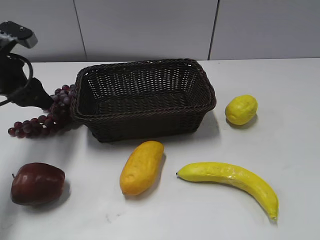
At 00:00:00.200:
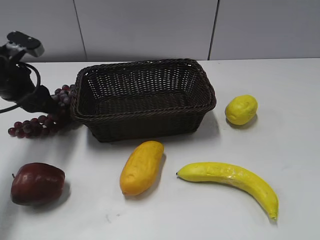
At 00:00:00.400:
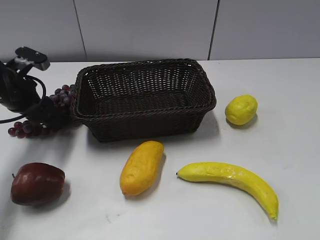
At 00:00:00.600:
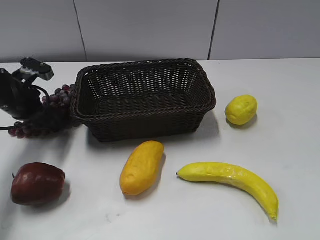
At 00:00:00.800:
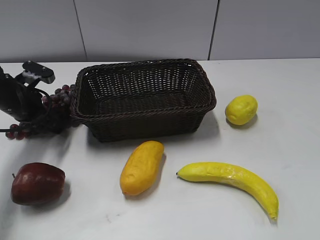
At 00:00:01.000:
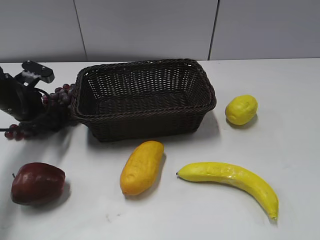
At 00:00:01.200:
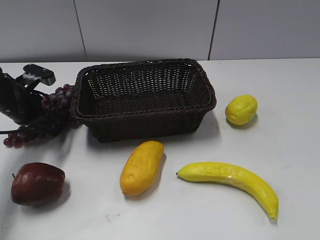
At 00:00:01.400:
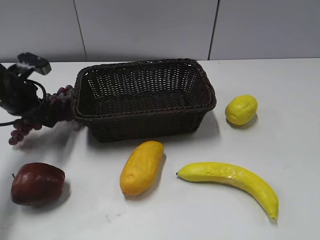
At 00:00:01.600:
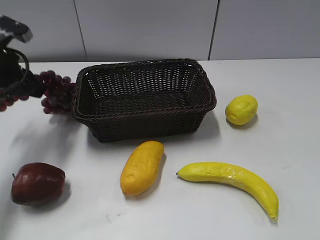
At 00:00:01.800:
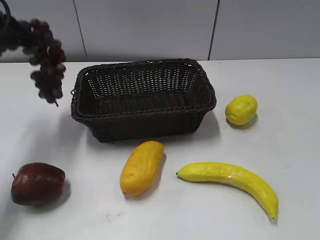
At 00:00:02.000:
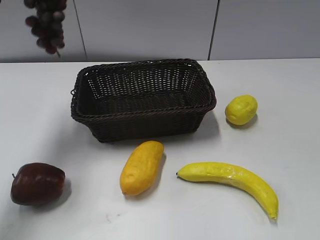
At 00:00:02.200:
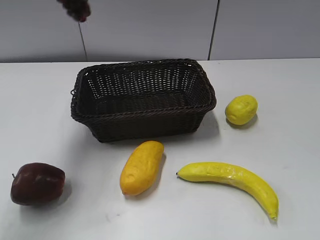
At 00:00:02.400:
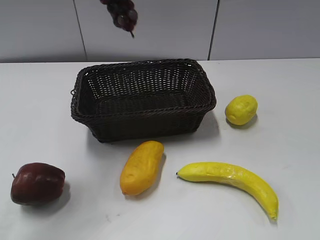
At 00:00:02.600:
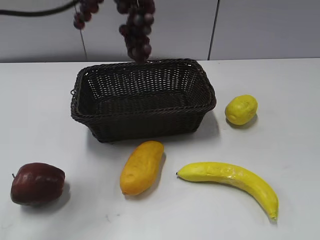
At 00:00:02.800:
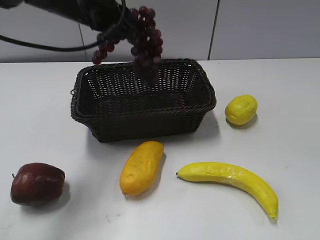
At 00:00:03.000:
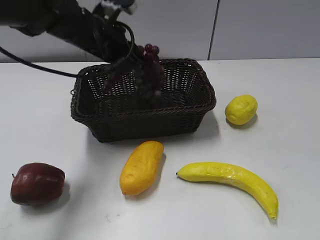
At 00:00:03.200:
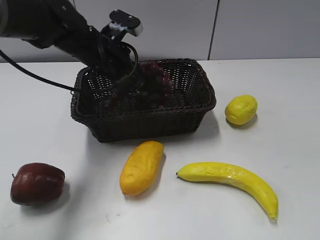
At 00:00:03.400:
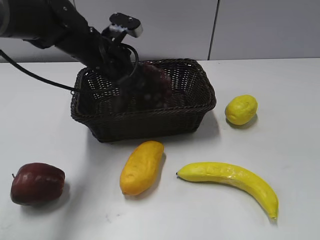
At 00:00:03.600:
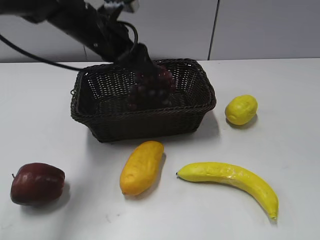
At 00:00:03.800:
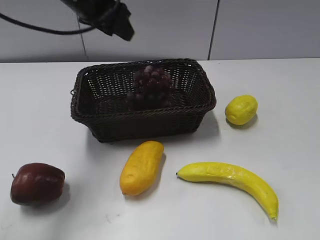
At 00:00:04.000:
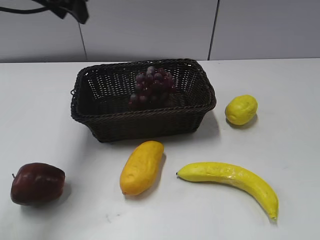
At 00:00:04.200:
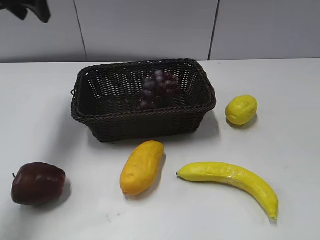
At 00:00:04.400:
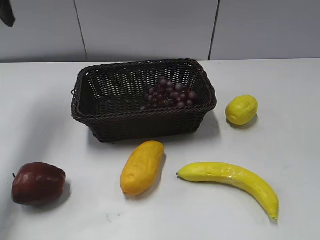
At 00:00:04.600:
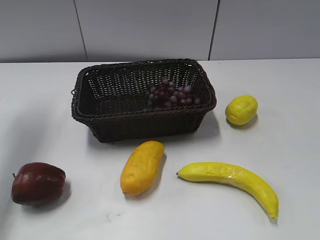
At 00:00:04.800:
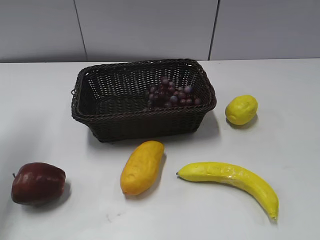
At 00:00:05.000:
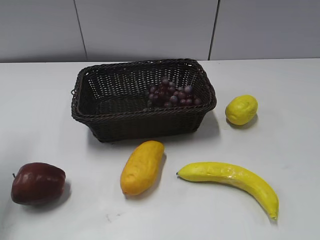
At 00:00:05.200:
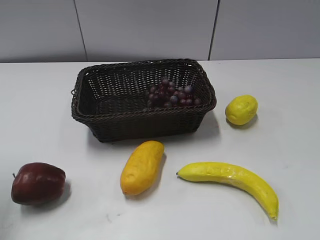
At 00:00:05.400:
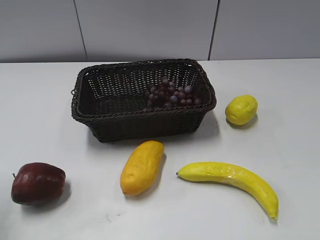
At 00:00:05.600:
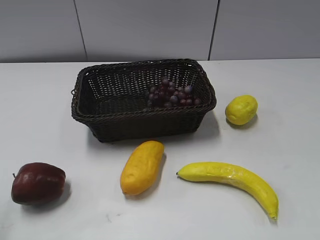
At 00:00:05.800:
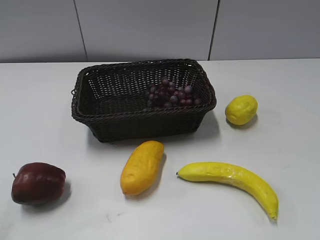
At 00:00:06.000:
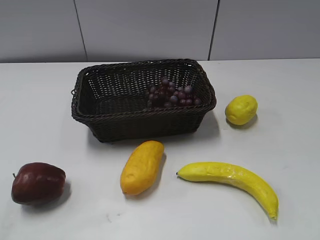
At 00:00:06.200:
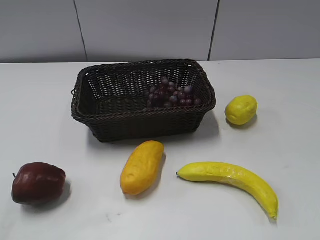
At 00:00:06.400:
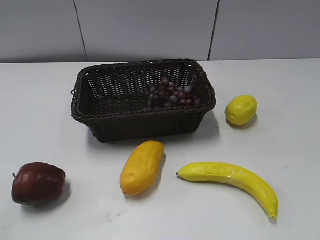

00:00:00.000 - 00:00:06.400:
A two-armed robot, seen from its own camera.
Step, 00:00:00.000 - 00:00:01.400: Grasp the grape with left gripper.
Step, 00:00:01.600 - 00:00:03.800: Place the grape in the basket with left gripper.
00:00:00.000 - 00:00:01.600: The left gripper moves about 10 cm downward and comes back, and closes its fingers.
00:00:01.600 - 00:00:03.200: The left gripper goes some 20 cm to the right, and reaches some 20 cm upward, then returns.
00:00:03.200 - 00:00:04.800: The left gripper shifts roughly 25 cm to the left and upward, and opens up.
00:00:04.800 - 00:00:06.400: The left gripper travels backward by roughly 30 cm.

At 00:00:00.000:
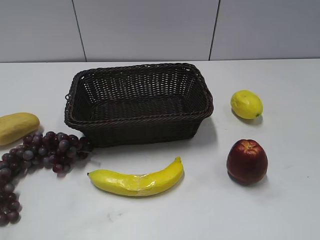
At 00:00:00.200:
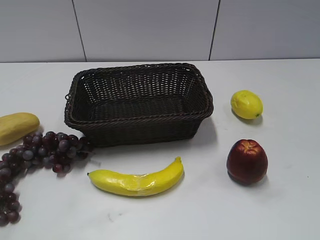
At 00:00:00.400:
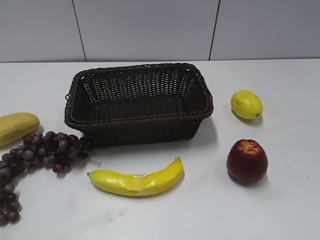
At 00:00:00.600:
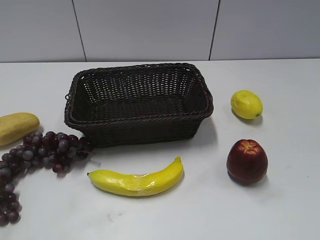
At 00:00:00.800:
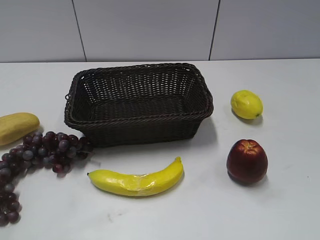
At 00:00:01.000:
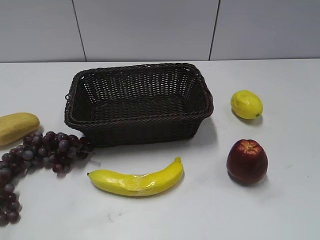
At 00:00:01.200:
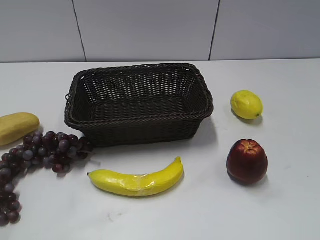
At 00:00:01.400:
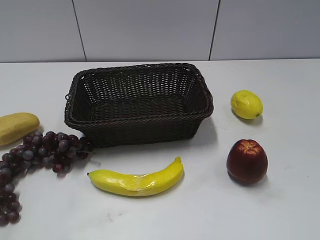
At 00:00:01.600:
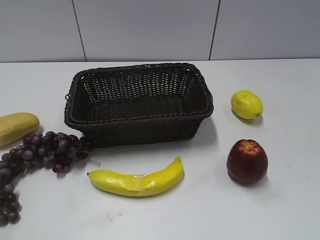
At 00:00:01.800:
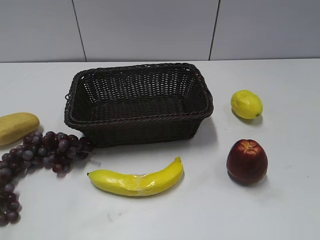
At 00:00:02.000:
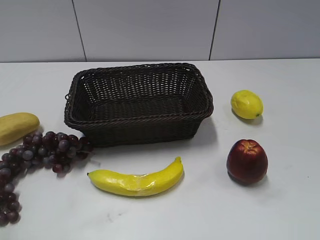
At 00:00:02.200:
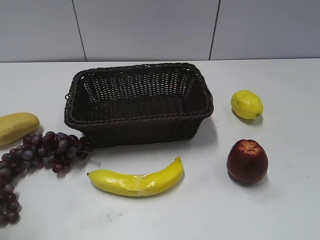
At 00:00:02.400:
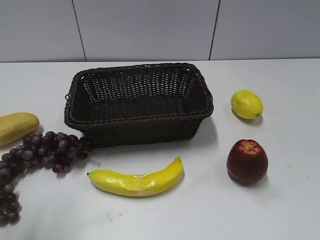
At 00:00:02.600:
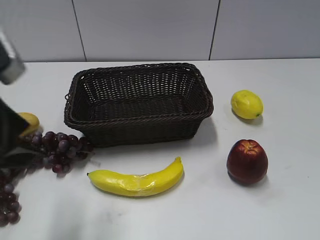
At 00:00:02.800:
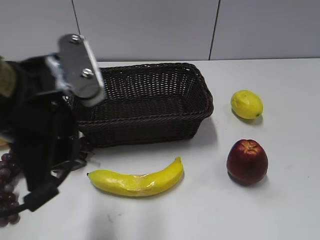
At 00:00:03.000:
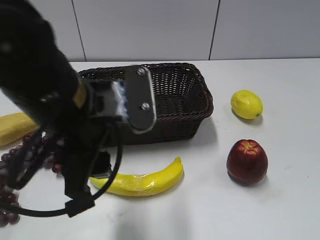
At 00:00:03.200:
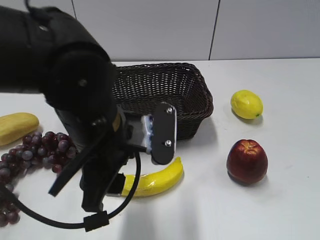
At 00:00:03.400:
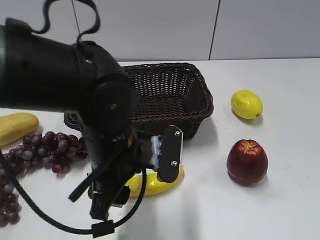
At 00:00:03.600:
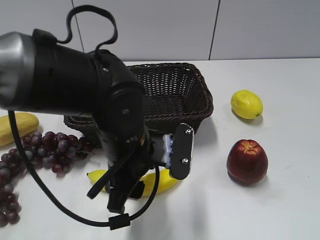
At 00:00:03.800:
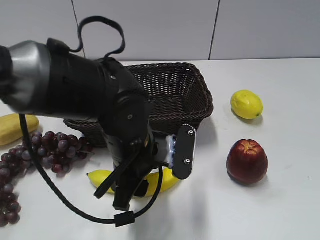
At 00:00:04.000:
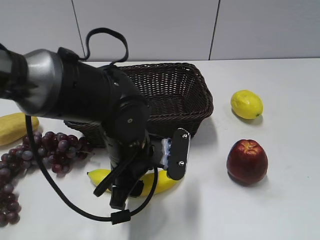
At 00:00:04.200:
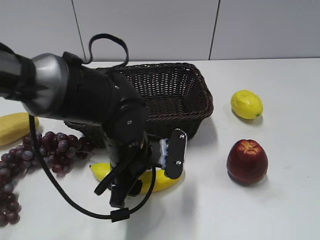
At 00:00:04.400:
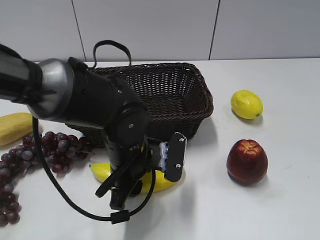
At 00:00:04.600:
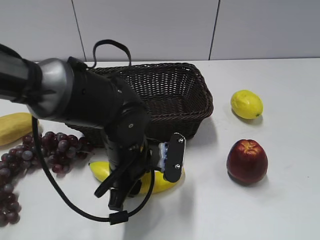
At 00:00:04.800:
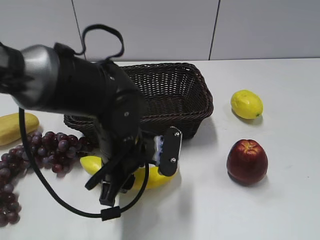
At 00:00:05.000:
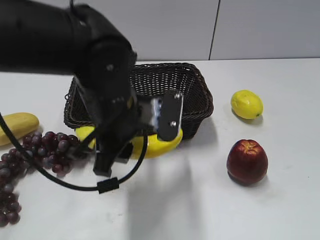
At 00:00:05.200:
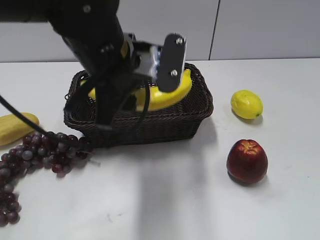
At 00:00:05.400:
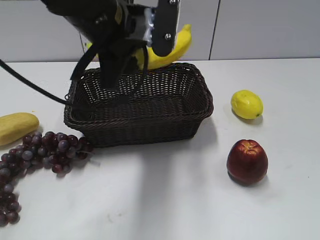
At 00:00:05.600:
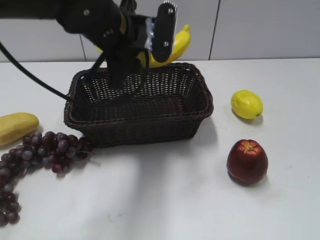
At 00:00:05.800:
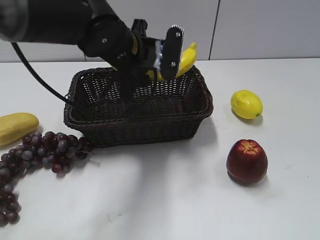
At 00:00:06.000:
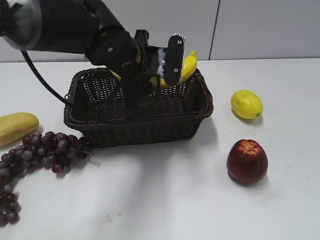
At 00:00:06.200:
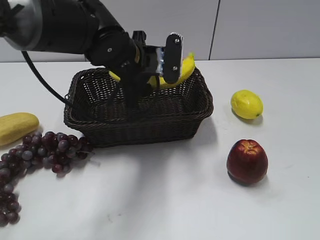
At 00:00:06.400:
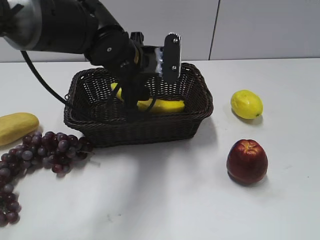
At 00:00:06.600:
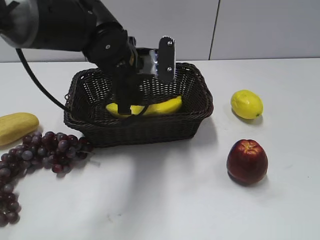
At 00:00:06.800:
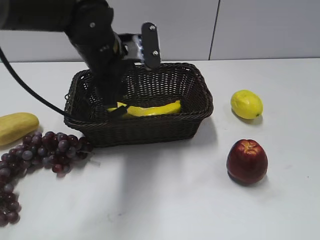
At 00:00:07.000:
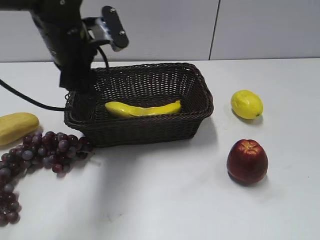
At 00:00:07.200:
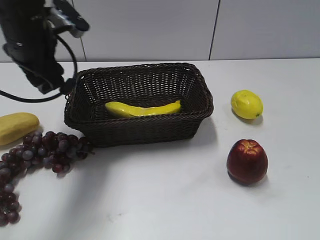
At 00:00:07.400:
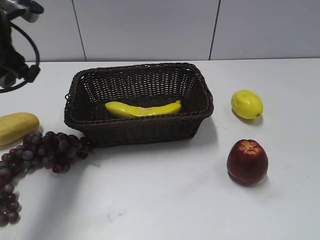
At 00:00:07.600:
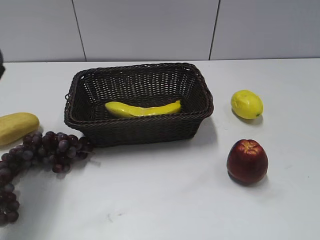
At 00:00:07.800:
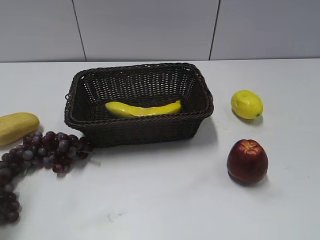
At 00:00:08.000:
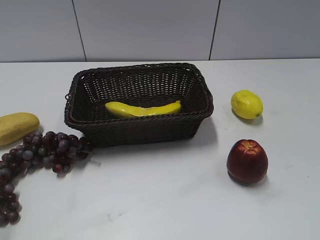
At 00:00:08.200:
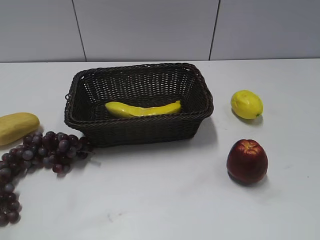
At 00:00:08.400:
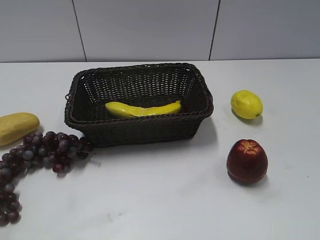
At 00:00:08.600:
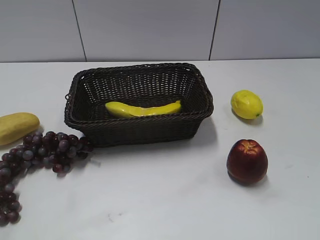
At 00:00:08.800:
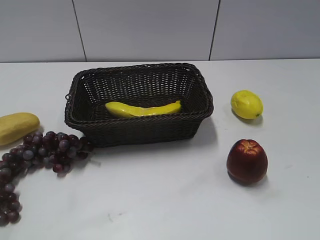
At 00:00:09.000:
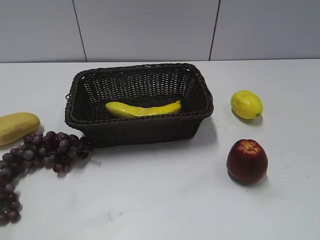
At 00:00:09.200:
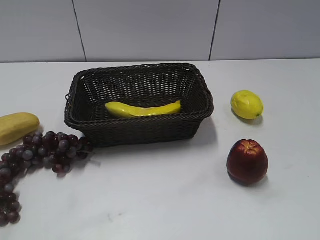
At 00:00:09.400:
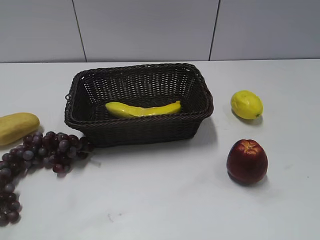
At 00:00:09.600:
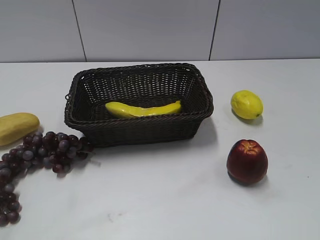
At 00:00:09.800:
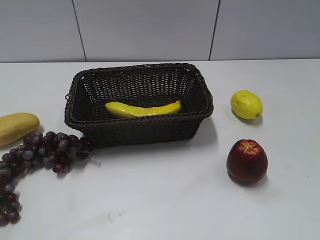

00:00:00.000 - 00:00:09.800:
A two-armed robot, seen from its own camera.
Step, 00:00:02.600 - 00:00:04.400: Grasp the banana with left gripper.
Step, 00:00:04.600 - 00:00:06.400: Place the banana in the basket with left gripper.
00:00:01.400 - 00:00:02.800: The left gripper travels to the right and forward by some 25 cm.
00:00:02.800 - 00:00:04.200: The left gripper moves downward, to the right and forward, some 20 cm.
00:00:04.200 - 00:00:05.600: The left gripper goes approximately 15 cm upward and forward, and closes.
00:00:05.600 - 00:00:07.000: The left gripper goes about 5 cm to the left, and opens.
00:00:07.000 - 00:00:08.400: The left gripper travels backward and to the left by some 35 cm.
